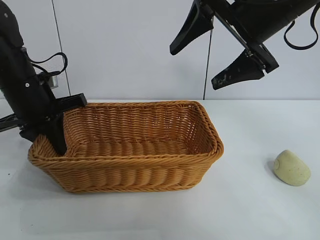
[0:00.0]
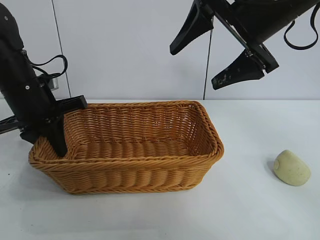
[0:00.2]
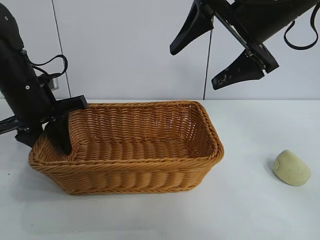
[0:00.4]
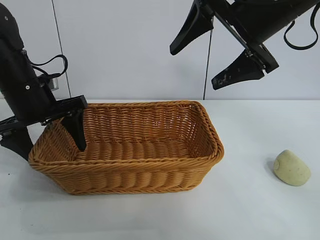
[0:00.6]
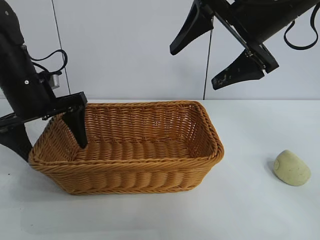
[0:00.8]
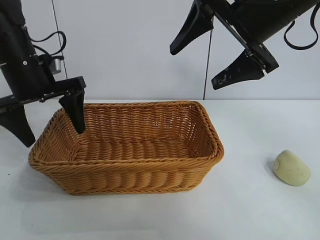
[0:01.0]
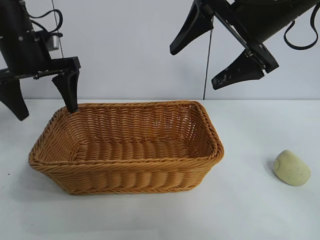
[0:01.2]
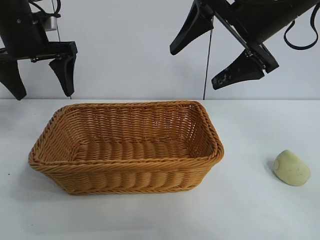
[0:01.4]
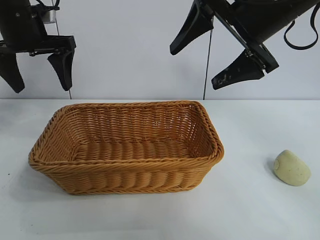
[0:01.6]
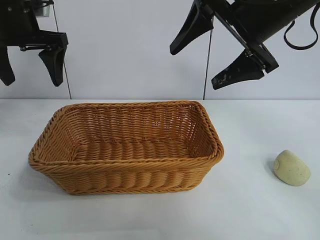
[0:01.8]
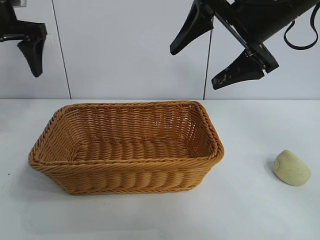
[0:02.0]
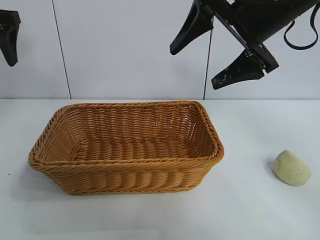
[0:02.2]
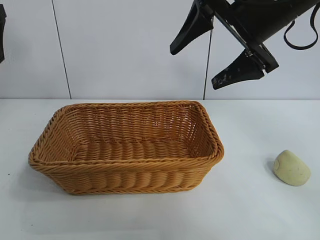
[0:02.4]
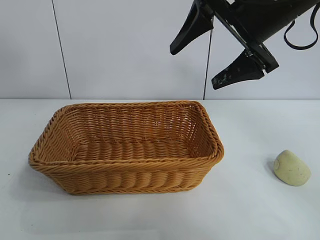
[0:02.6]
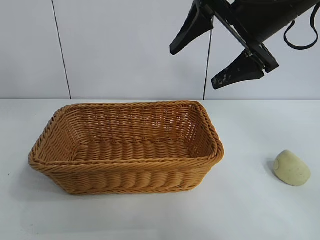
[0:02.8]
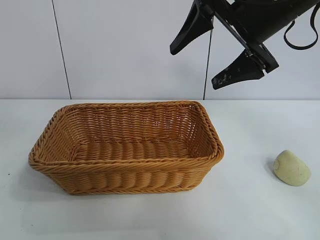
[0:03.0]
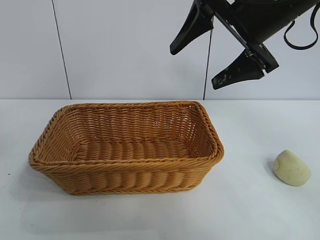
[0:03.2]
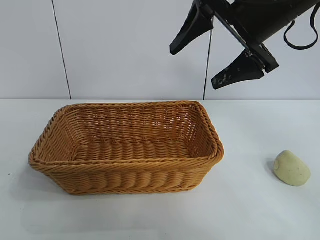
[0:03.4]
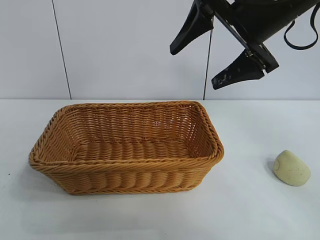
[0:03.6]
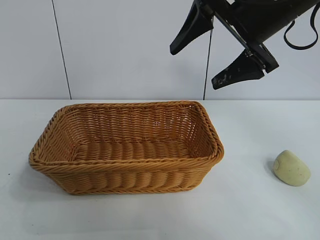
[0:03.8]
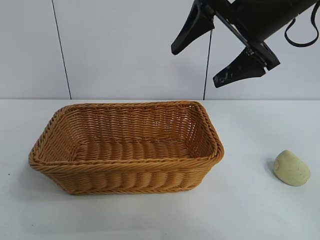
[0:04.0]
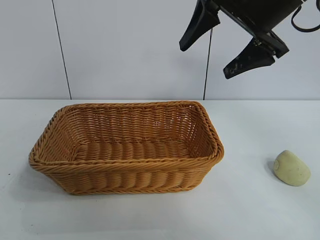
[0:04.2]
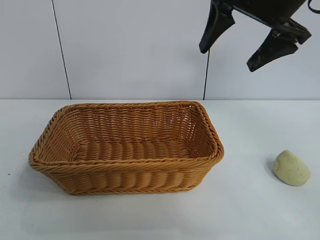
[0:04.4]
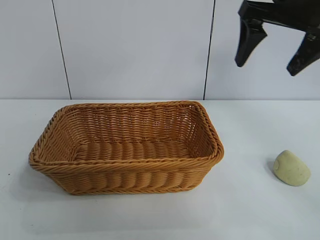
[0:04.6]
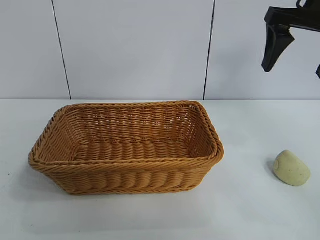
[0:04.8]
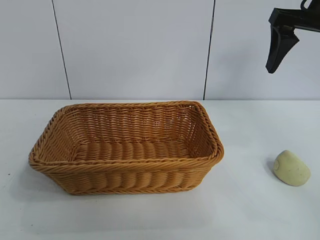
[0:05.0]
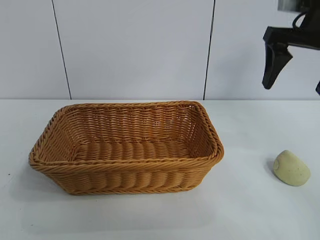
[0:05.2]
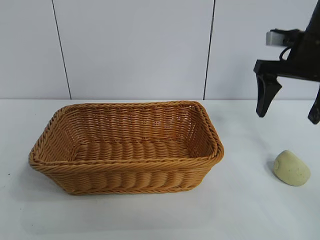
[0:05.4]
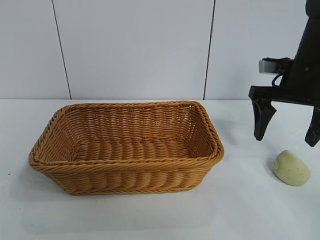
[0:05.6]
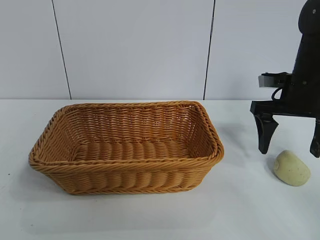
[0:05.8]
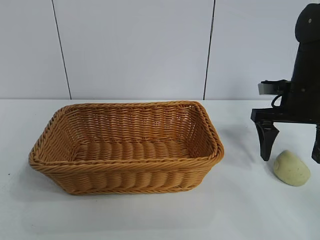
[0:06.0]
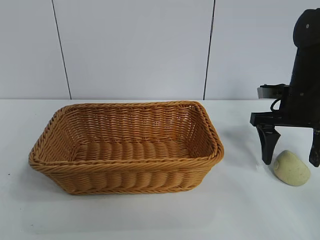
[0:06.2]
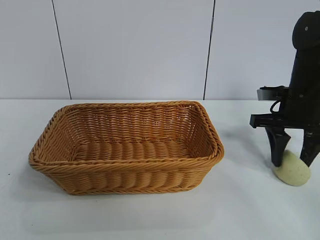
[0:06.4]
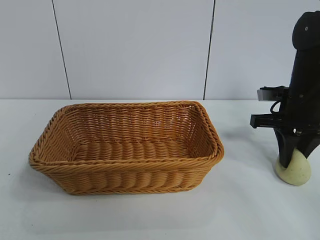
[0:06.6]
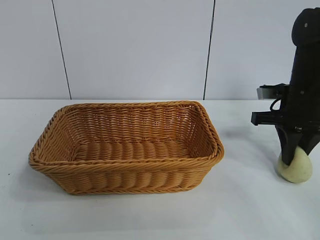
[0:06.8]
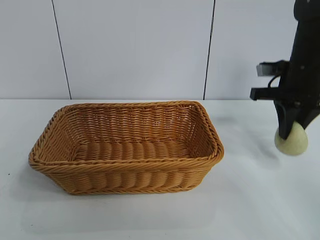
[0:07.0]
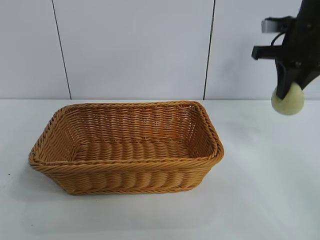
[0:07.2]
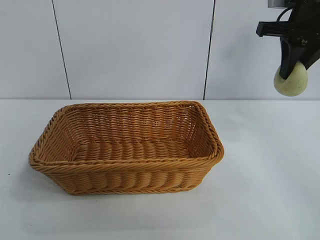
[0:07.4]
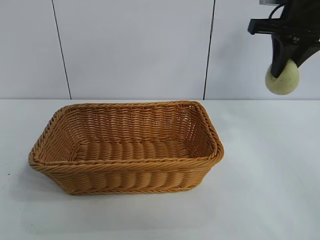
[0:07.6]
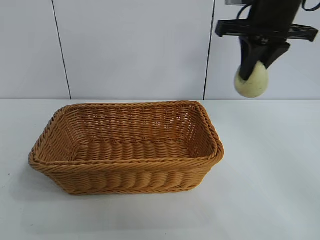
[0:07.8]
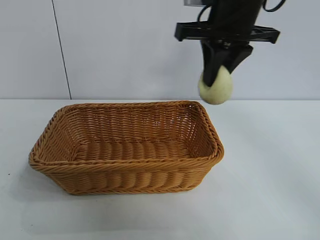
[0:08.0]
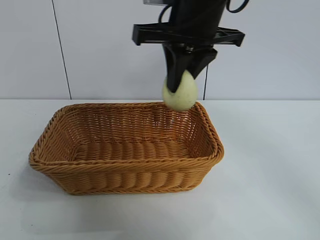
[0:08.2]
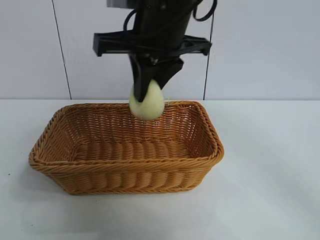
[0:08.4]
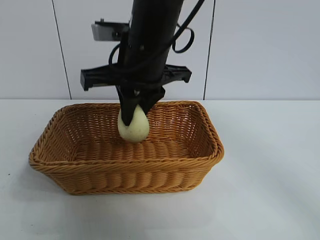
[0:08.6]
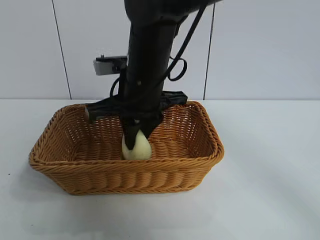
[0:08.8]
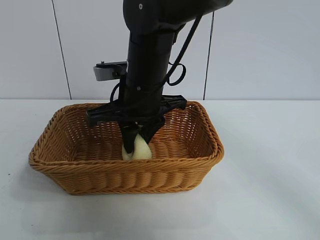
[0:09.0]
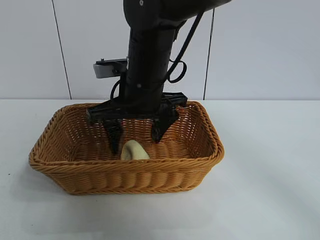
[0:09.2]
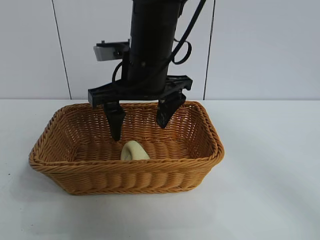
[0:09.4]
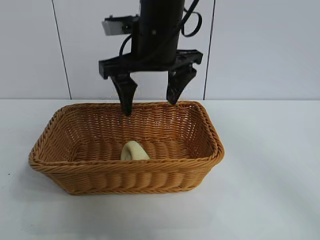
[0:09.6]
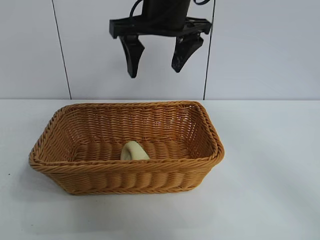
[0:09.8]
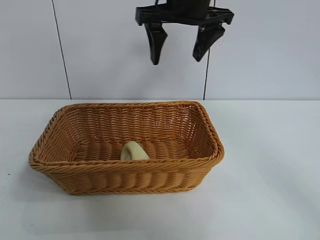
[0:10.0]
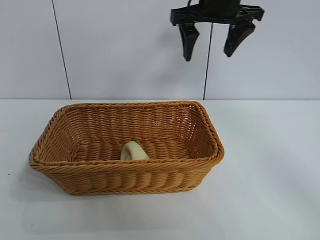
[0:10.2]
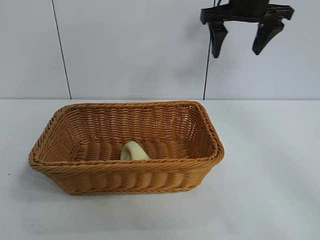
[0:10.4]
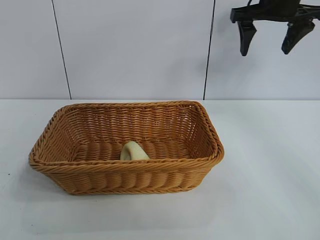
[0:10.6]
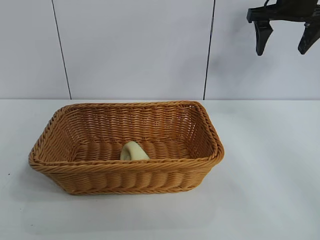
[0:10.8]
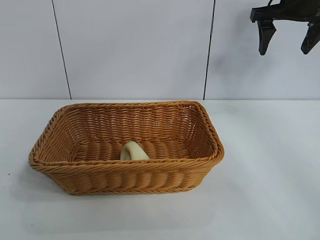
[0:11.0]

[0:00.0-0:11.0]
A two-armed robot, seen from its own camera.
Task of the whole recording: pick up the egg yolk pastry and put it into the basket.
Step, 0:01.0 to 0:06.6: Grasp egg yolk pastry with right gripper.
Step, 0:06.8 to 0:09.2: Place the egg yolk pastry in the basket with right gripper.

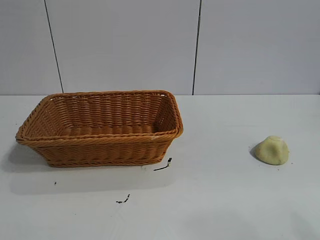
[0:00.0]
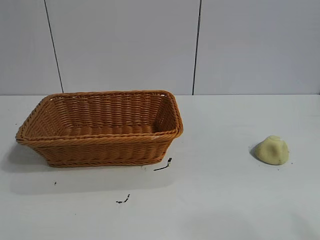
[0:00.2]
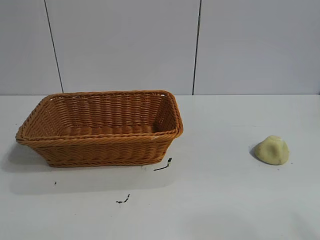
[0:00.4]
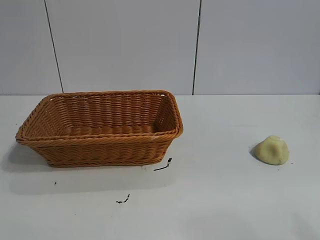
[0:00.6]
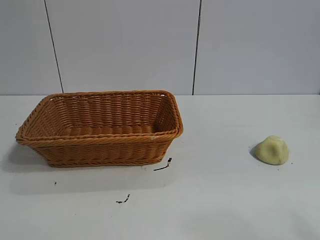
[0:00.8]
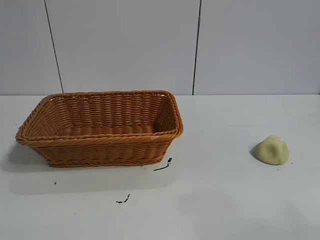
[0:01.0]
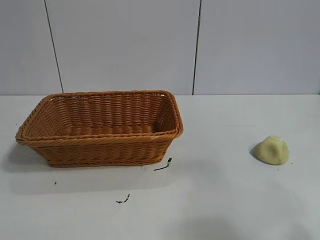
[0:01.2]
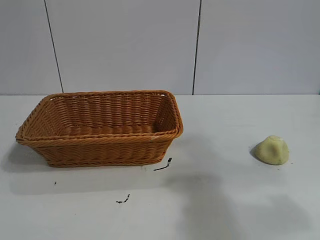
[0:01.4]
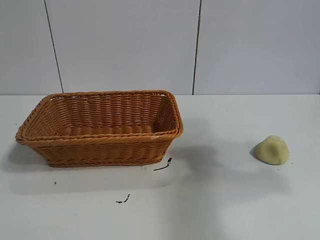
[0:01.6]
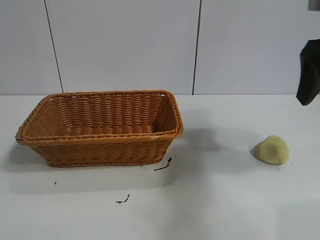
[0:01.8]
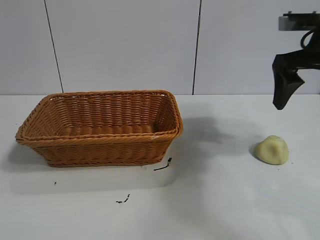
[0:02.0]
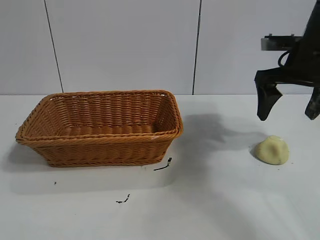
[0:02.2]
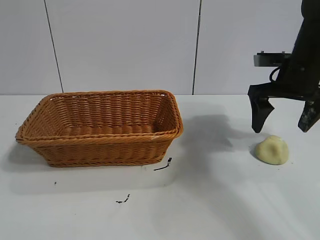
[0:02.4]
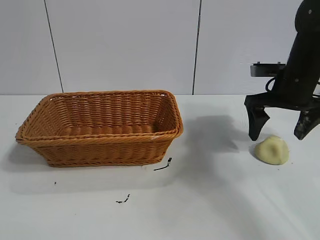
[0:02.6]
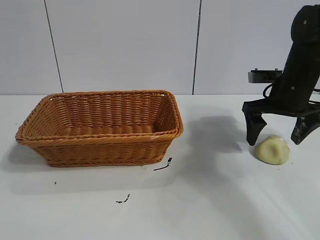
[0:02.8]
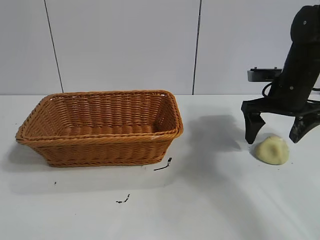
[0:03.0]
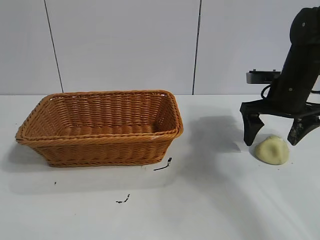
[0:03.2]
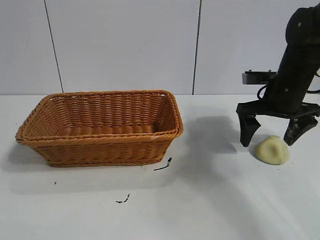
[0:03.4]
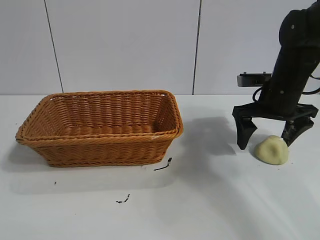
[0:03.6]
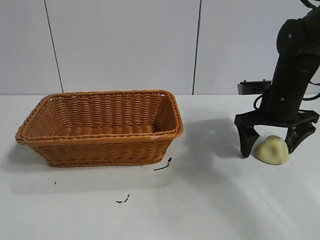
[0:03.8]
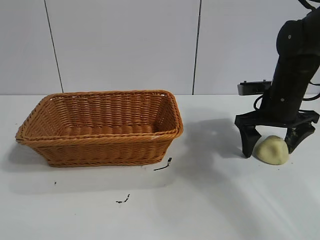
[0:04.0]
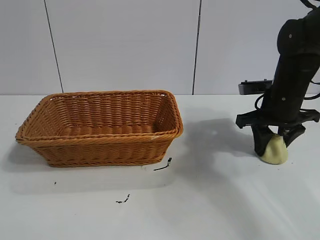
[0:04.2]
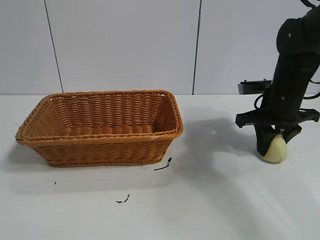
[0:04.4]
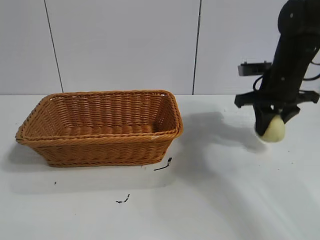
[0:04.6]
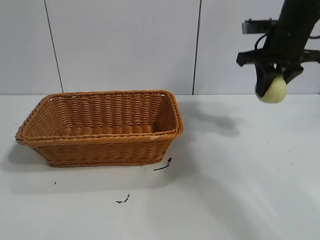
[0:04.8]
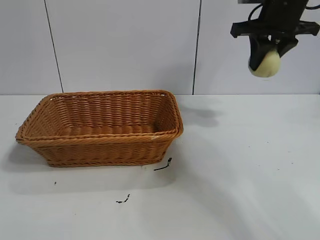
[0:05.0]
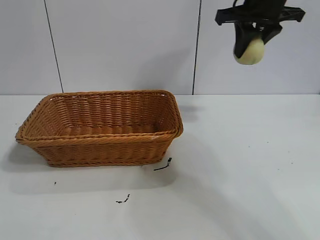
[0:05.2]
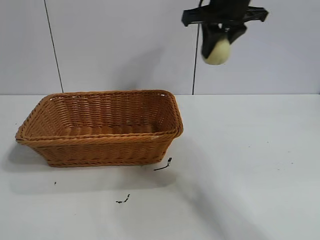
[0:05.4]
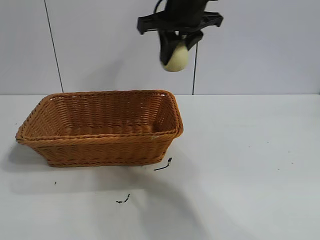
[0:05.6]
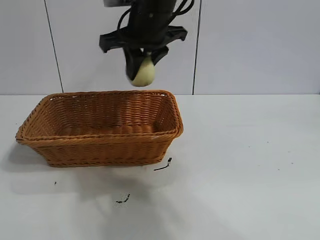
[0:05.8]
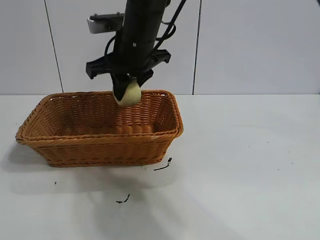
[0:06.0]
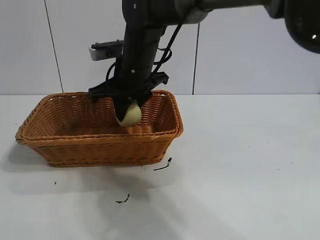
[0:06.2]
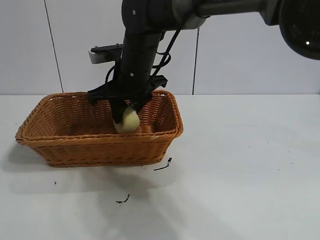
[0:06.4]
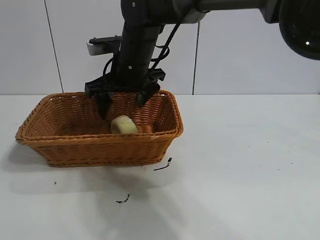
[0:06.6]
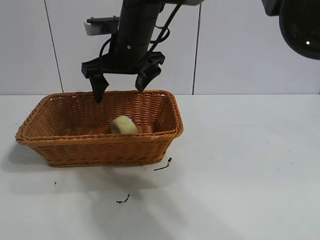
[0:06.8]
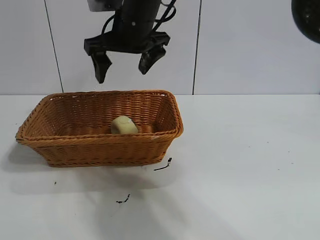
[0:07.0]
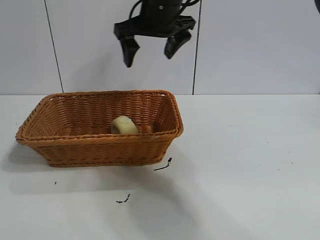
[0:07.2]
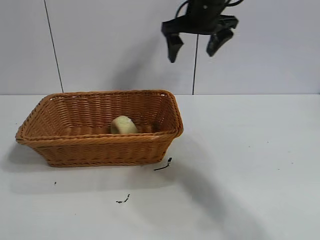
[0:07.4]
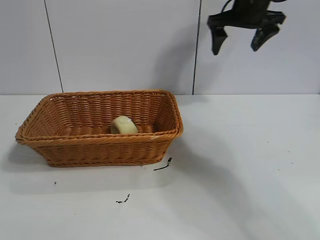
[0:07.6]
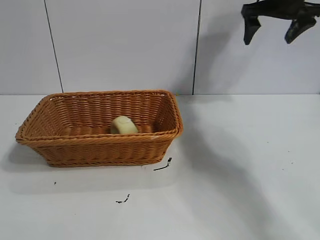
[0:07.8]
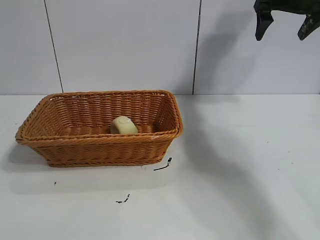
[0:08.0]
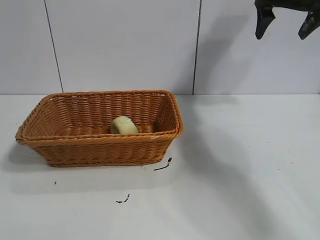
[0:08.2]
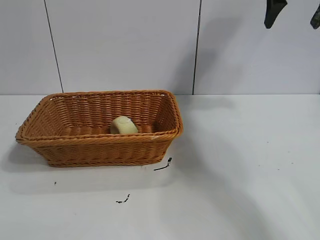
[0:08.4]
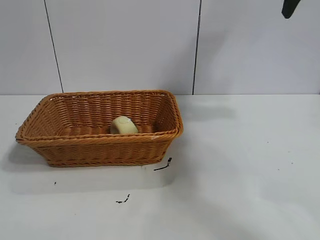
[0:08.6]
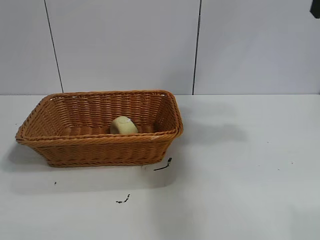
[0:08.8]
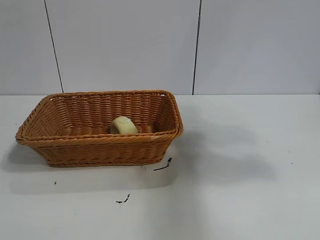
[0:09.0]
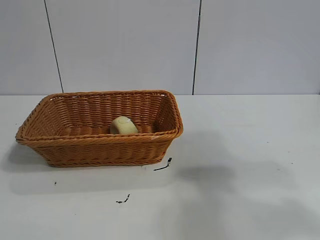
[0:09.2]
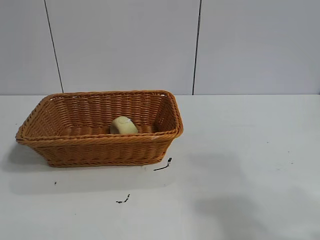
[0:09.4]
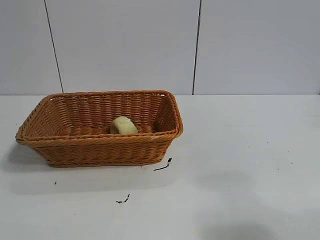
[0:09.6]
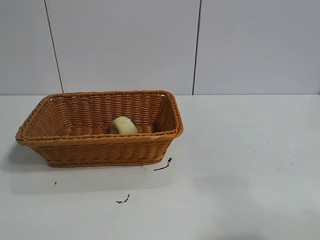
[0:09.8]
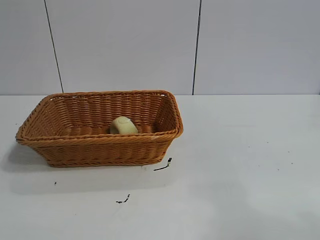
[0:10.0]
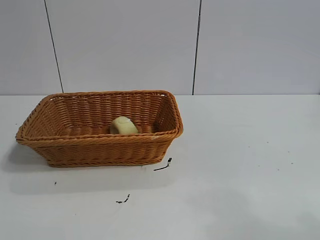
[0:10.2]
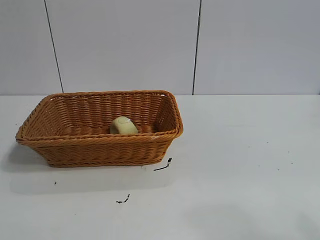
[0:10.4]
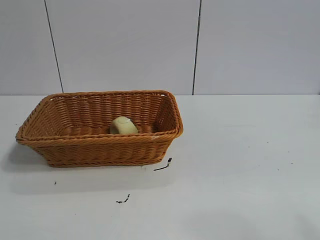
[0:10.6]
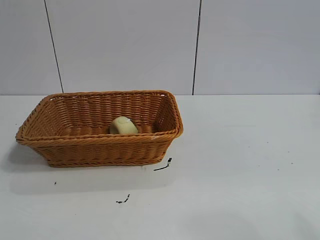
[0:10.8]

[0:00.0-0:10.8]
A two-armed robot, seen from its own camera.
Task of the whole recording: pick up the egg yolk pastry and put it into the basket.
Step, 0:01.0 to 0:04.4: Grasp egg yolk pastry with right gripper.
Step, 0:04.6 to 0:06.4: Place the egg yolk pastry in the basket with right gripper.
